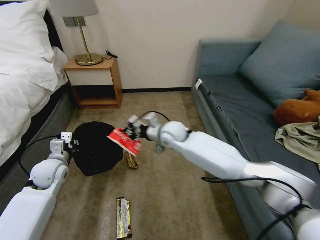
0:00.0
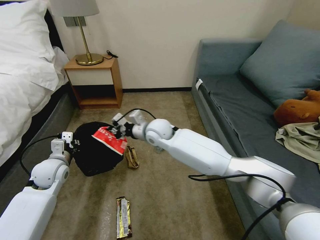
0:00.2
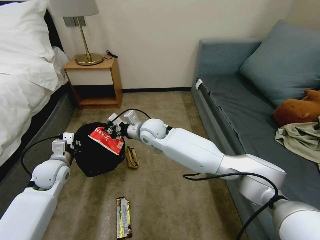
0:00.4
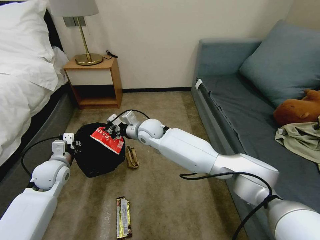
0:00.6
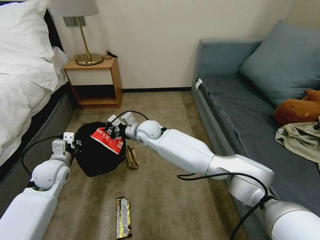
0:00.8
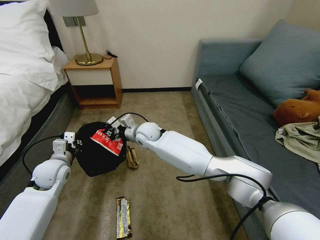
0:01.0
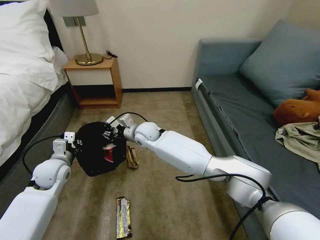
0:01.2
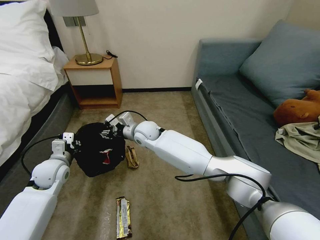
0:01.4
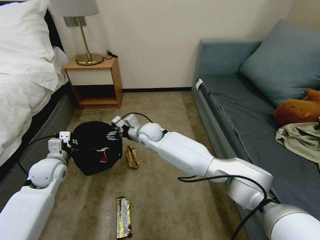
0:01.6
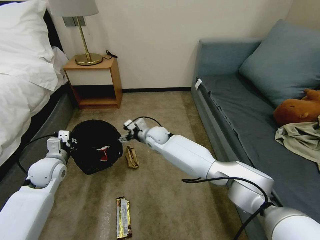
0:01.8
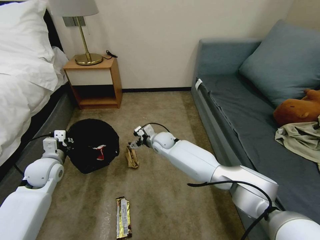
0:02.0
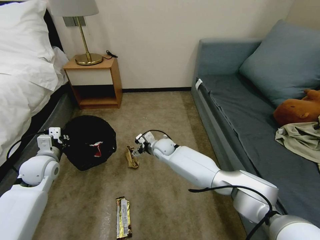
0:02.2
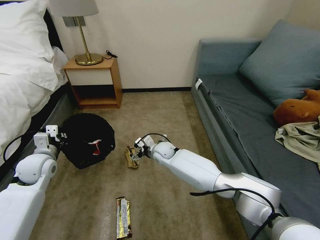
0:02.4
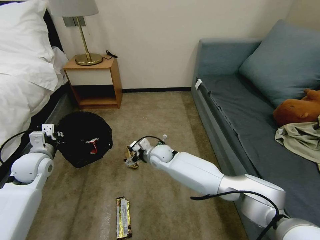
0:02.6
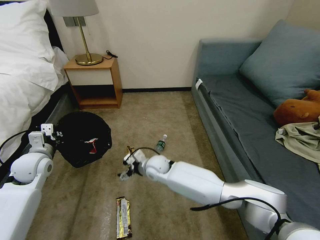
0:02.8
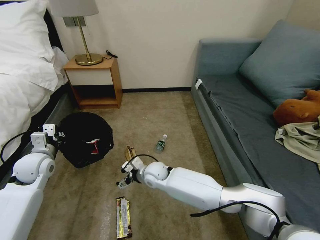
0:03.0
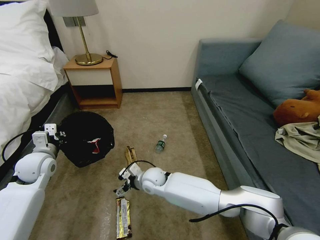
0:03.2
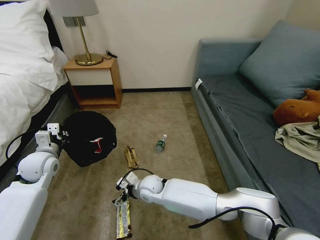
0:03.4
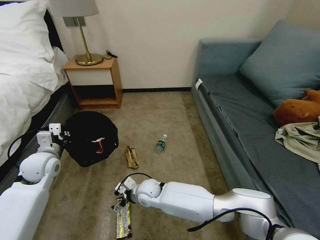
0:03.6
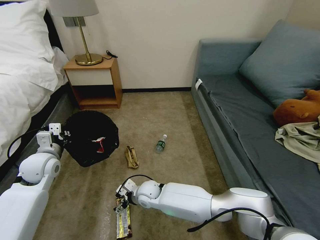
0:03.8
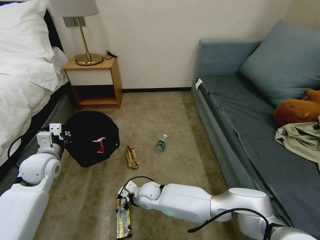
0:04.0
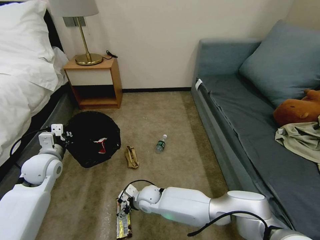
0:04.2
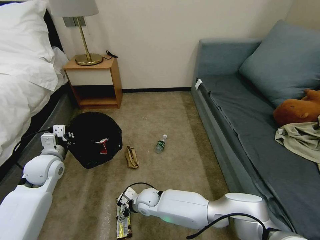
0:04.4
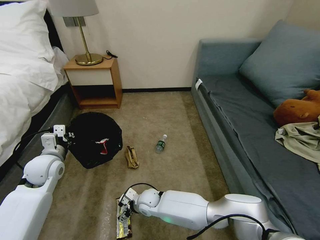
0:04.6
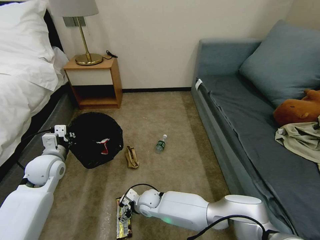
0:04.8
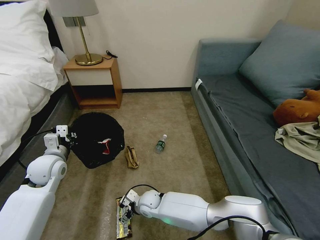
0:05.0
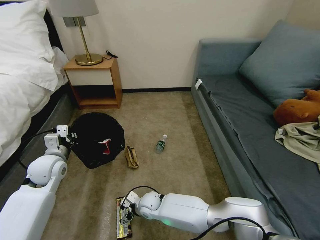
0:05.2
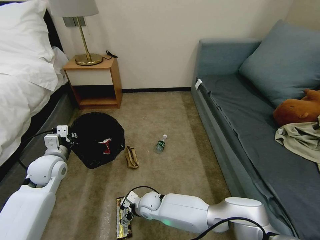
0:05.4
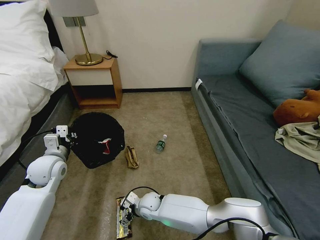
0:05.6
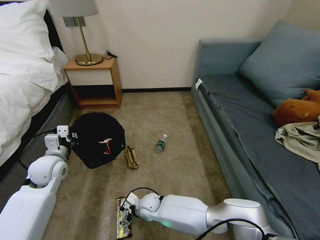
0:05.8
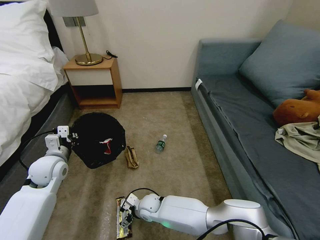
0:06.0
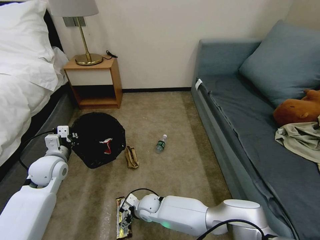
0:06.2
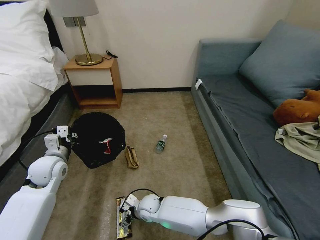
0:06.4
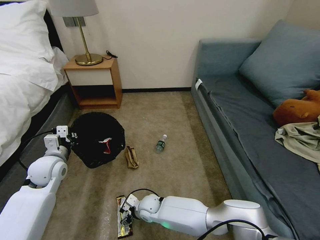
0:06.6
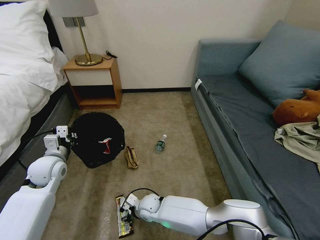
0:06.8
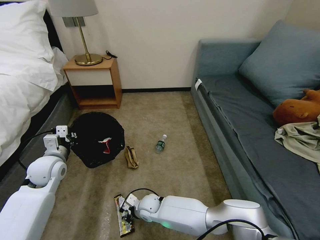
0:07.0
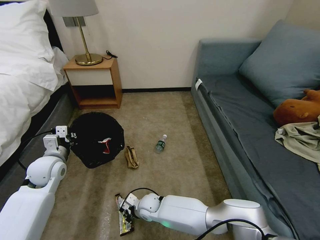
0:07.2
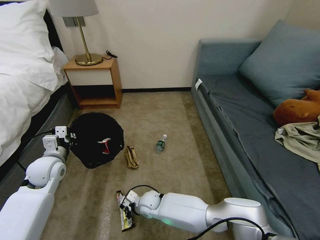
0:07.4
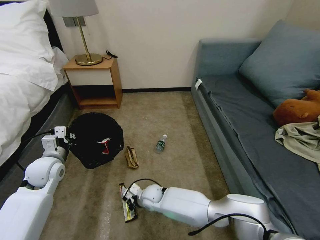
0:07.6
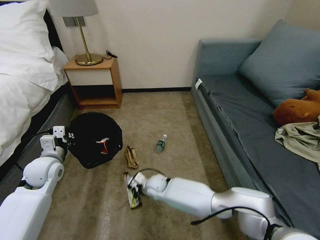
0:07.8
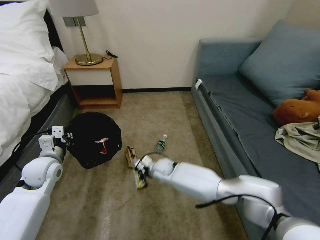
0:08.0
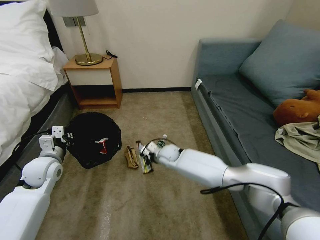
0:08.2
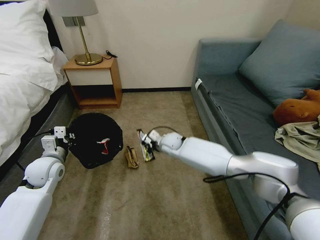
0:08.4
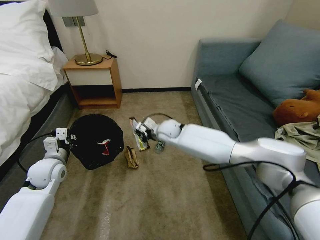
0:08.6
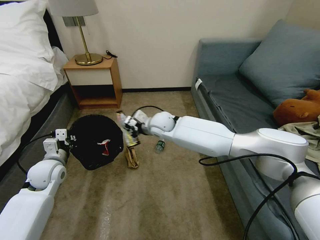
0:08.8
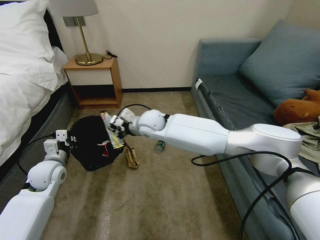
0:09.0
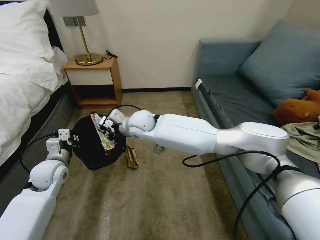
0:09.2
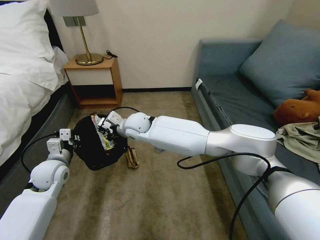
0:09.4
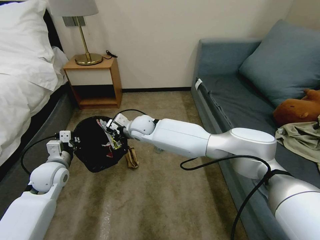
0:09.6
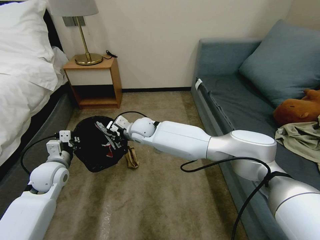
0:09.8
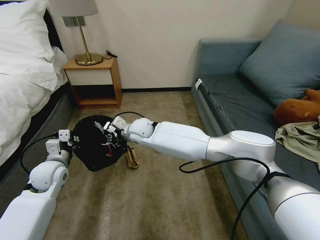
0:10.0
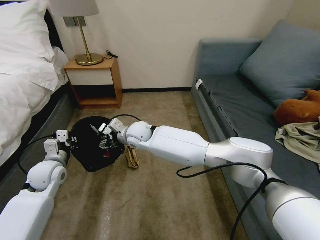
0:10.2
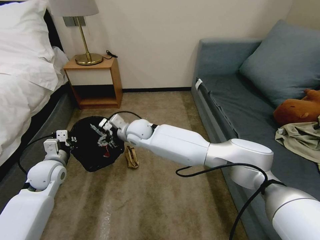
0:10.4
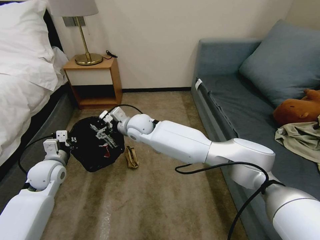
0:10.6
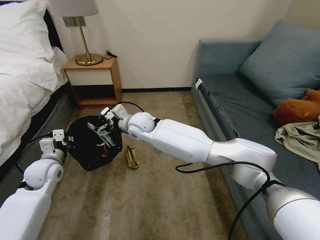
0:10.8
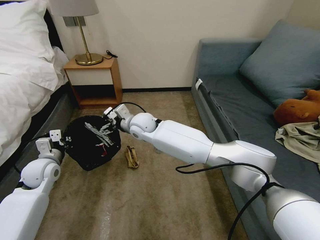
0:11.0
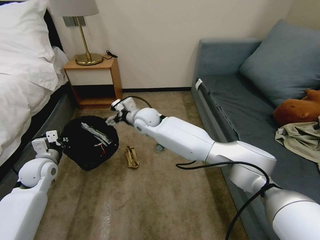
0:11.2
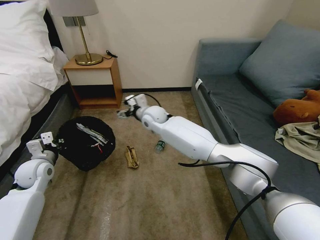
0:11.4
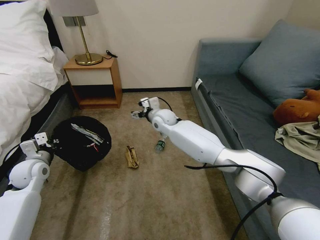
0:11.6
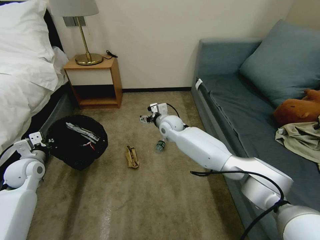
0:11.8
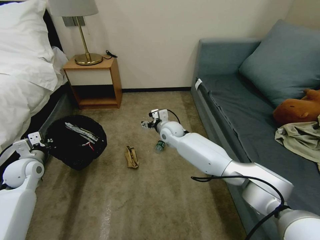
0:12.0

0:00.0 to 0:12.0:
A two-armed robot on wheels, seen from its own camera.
Task of the whole recording: Pick up the trash bin, then pick up the garbage on the floor and place it into the trash bin.
0:00.0 to 0:01.6: The right gripper moves to the left, roughly 10 cm, and opens up.
0:01.6 to 0:03.0: The right gripper travels downward and backward by roughly 15 cm.
0:03.0 to 0:04.4: The right gripper moves downward and backward, about 10 cm.
0:04.4 to 0:06.0: There are only small adjustments of the grippers.
0:06.0 to 0:07.6: The right gripper closes.
0:07.6 to 0:09.0: The right gripper is displaced upward and forward by approximately 35 cm.
0:09.0 to 0:10.4: The right gripper shifts by some 5 cm, and opens up.
0:10.4 to 0:12.0: The right gripper shifts some 15 cm to the right, downward and forward; the left gripper goes some 10 cm to the left.

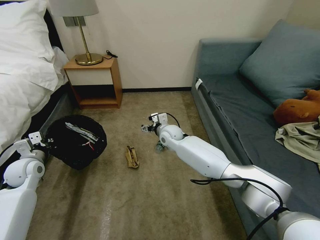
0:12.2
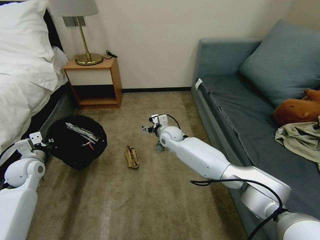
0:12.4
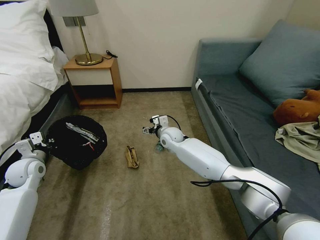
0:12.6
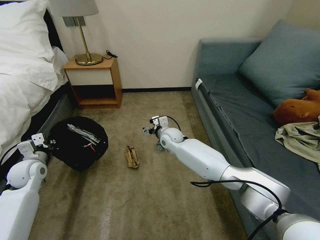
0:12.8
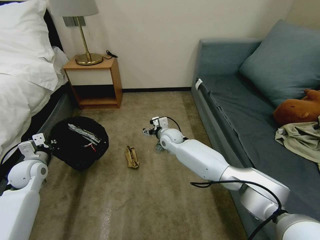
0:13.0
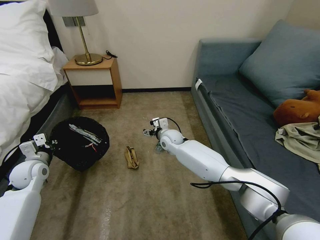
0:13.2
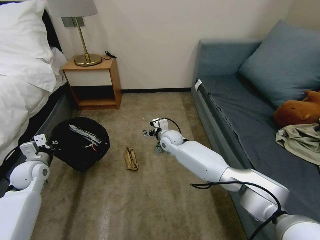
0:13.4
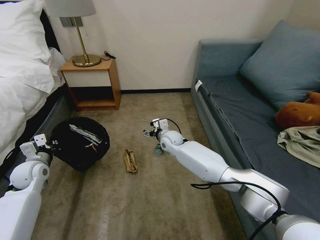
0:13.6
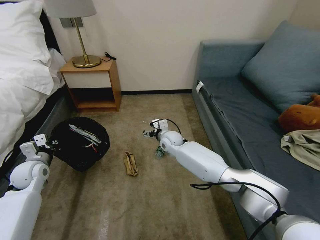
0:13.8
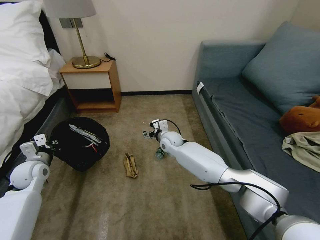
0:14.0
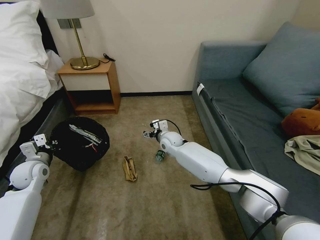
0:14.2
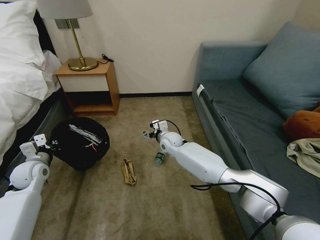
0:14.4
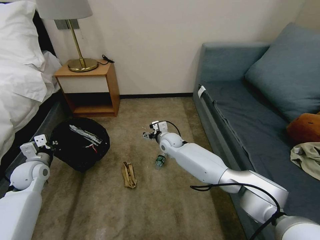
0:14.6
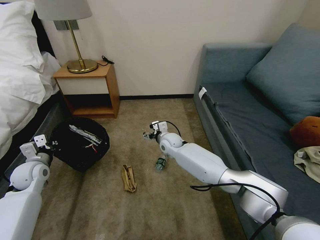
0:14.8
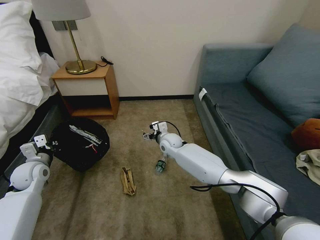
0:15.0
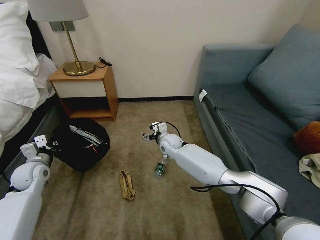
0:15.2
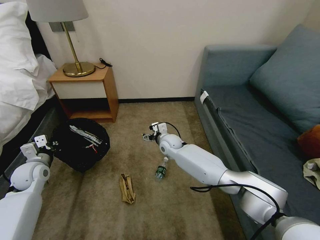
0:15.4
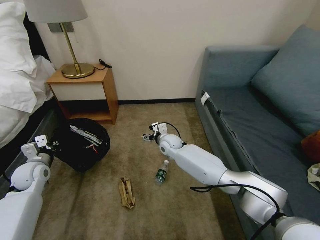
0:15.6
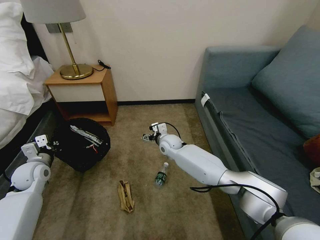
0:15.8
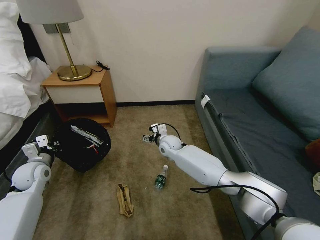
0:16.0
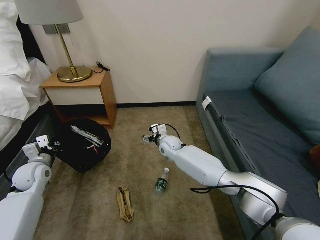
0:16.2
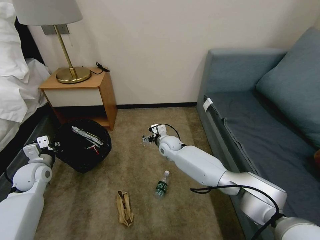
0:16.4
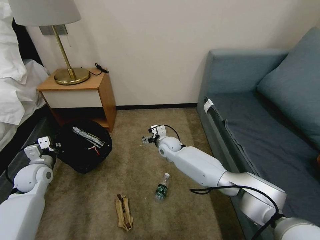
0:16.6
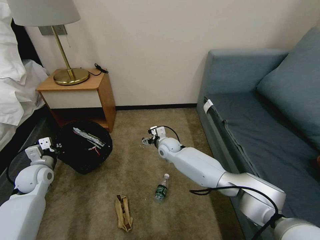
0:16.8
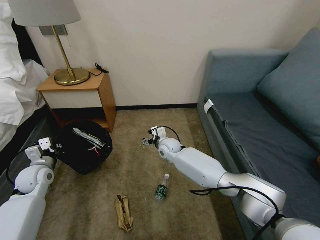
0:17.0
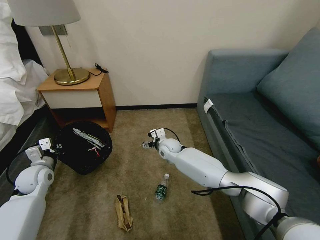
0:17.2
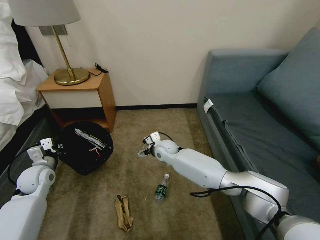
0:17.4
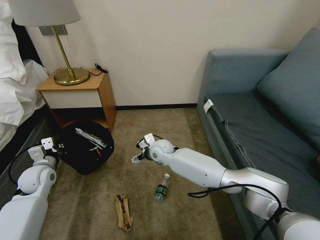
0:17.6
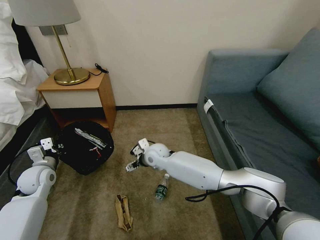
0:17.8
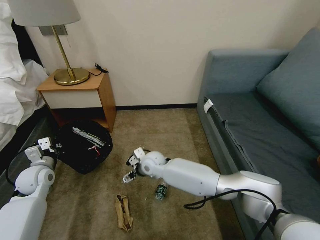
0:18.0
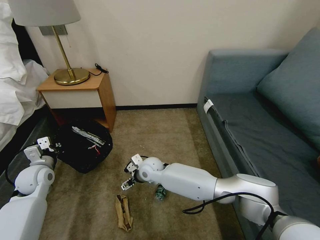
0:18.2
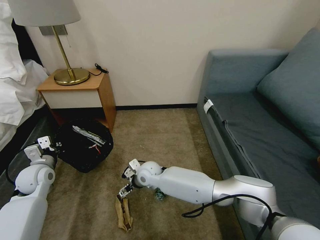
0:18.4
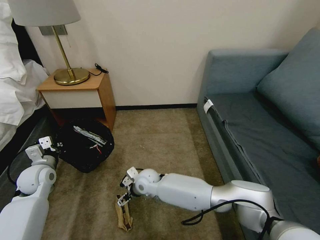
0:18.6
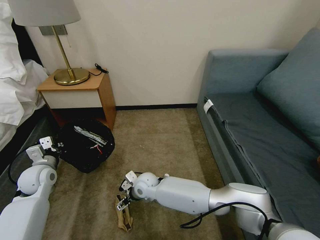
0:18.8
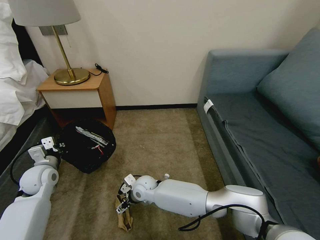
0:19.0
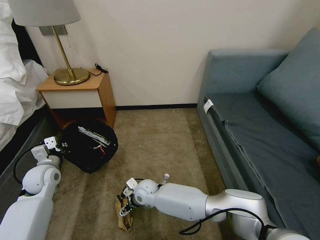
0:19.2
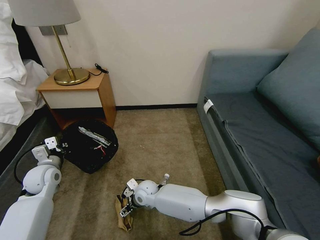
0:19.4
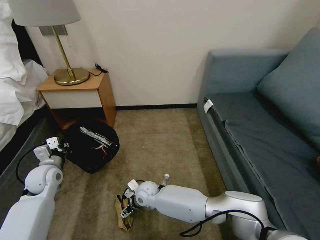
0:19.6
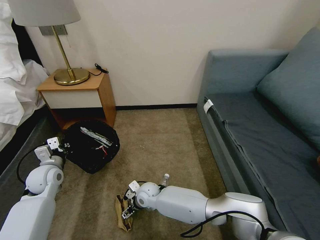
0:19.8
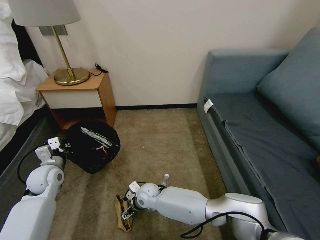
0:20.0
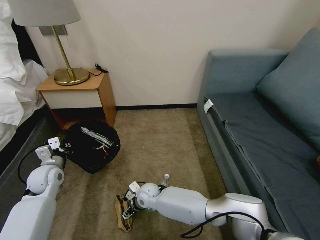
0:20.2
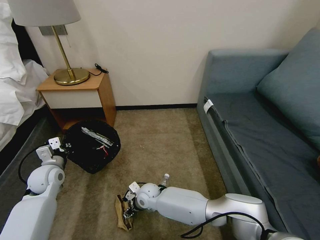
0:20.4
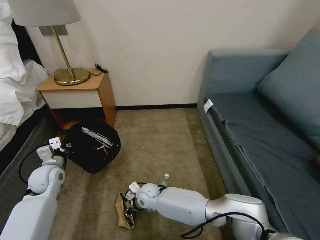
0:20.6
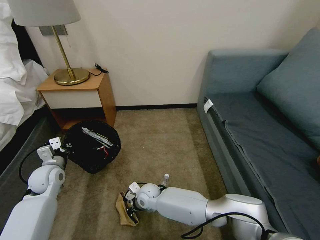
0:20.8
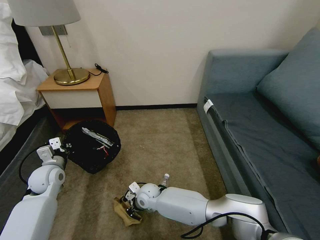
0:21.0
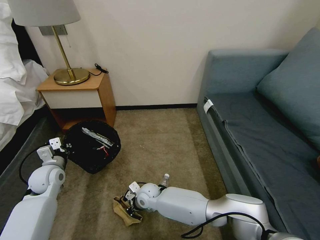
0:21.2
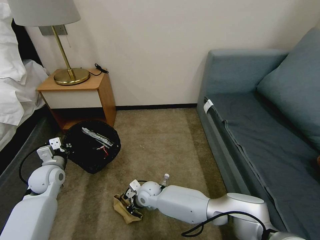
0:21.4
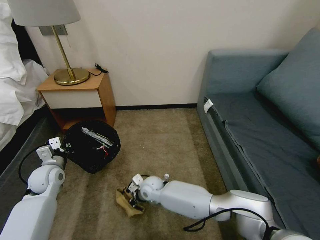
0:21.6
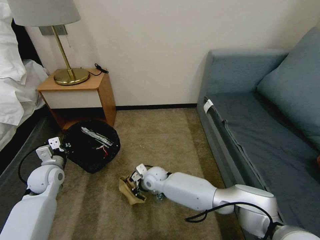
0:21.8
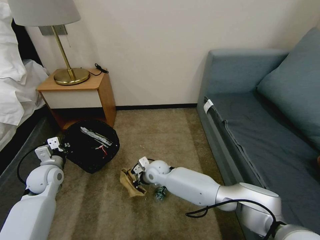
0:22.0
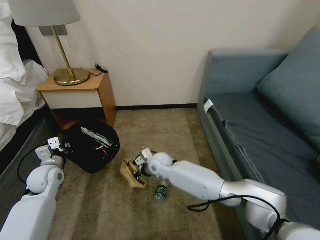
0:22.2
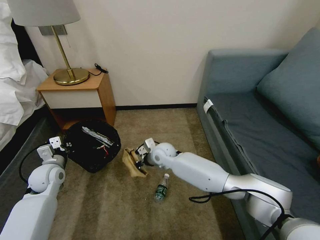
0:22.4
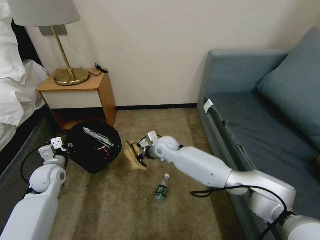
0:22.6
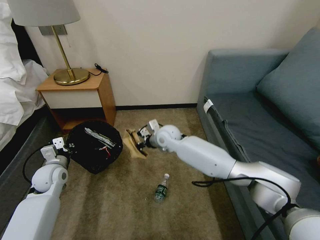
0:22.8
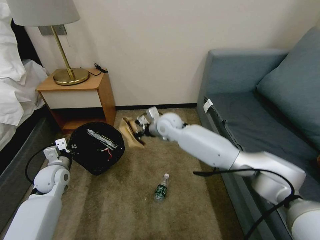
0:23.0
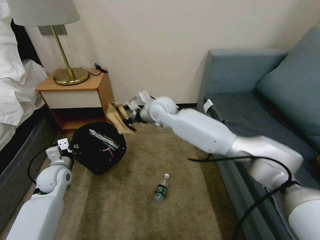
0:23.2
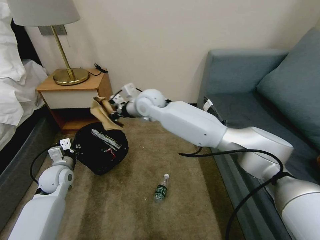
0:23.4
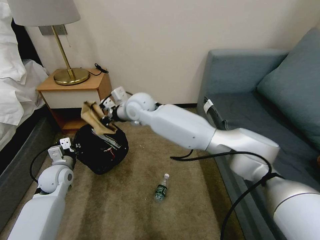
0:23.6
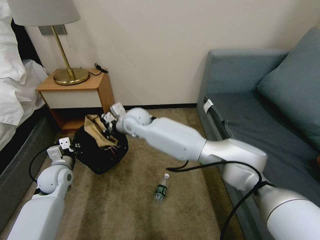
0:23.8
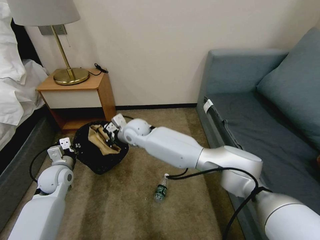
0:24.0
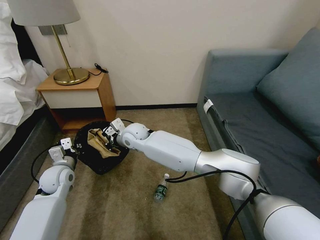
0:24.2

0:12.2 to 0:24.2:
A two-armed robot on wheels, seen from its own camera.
Task of the whole recording: Pick up the trash bin, then pick up the garbage on the floor and place it into the trash bin.
0:12.2 to 0:13.8: The grippers move only a little.
0:16.6 to 0:18.2: The right gripper shifts some 15 cm backward and to the left.
0:18.2 to 0:19.8: The right gripper moves downward and backward, roughly 10 cm.
0:19.8 to 0:21.2: The right gripper closes its fingers.
0:21.2 to 0:22.6: The right gripper is displaced upward, forward and to the right by some 20 cm.
0:22.6 to 0:24.2: The right gripper shifts approximately 10 cm to the left, and goes upward and returns, approximately 20 cm each way.
